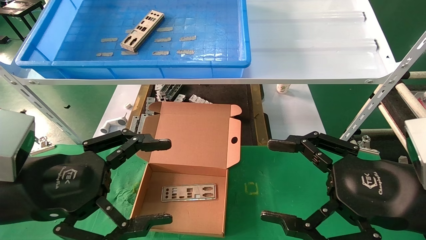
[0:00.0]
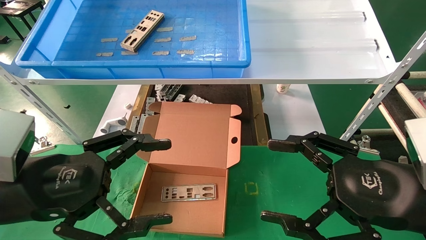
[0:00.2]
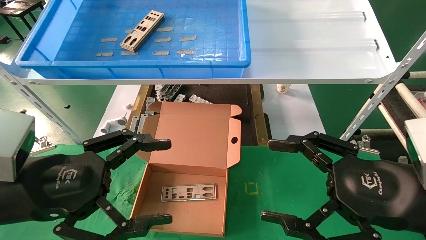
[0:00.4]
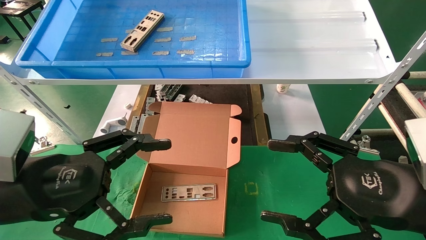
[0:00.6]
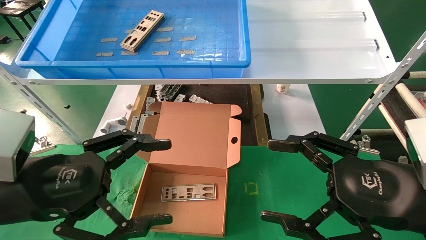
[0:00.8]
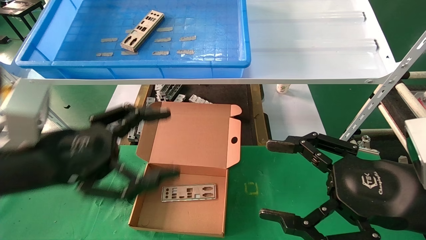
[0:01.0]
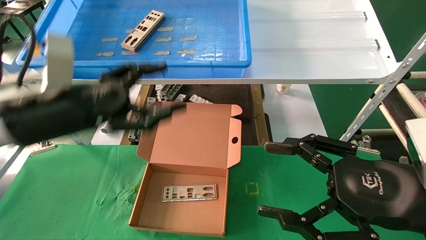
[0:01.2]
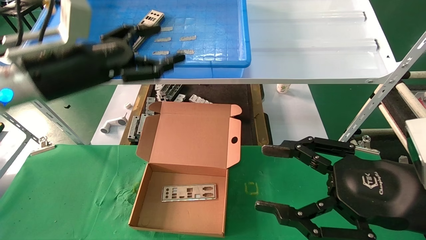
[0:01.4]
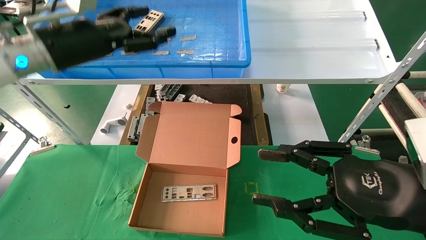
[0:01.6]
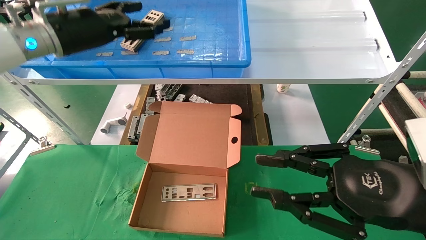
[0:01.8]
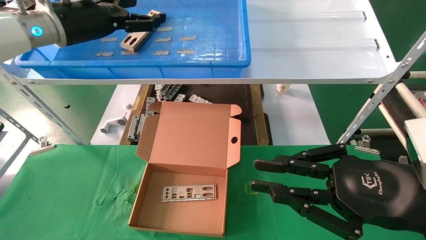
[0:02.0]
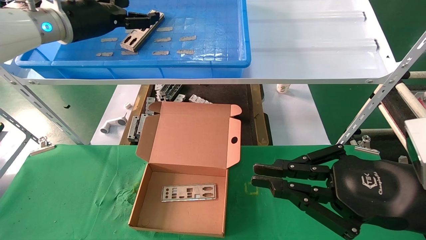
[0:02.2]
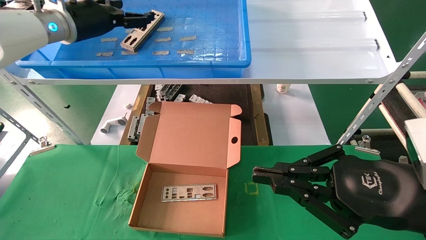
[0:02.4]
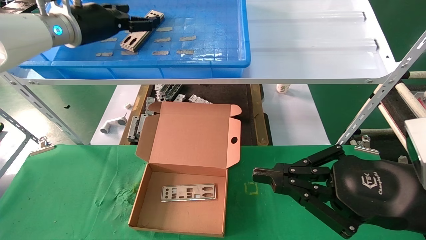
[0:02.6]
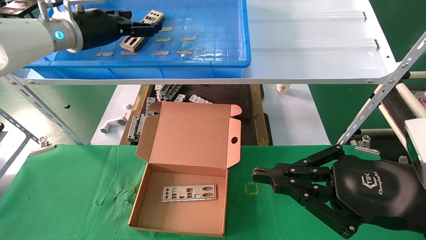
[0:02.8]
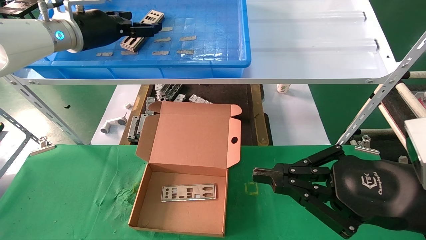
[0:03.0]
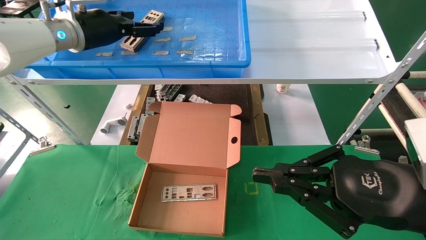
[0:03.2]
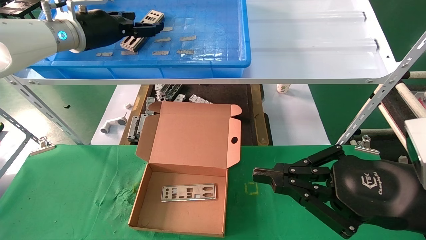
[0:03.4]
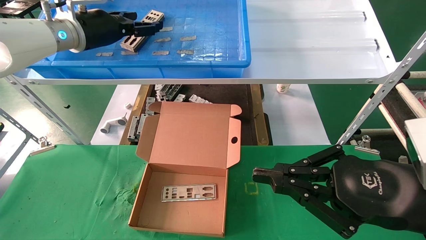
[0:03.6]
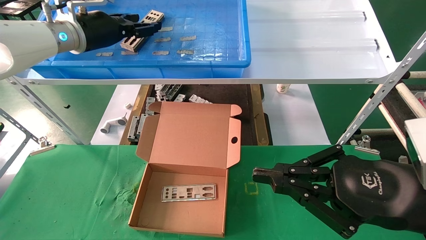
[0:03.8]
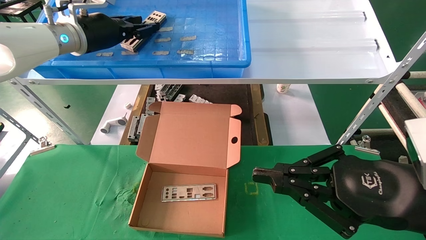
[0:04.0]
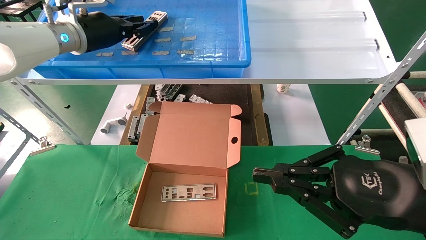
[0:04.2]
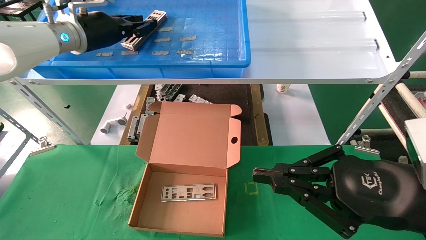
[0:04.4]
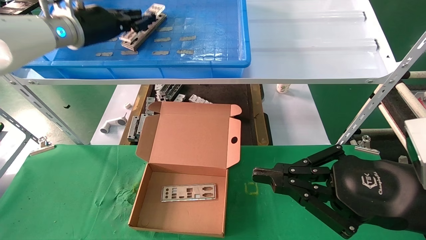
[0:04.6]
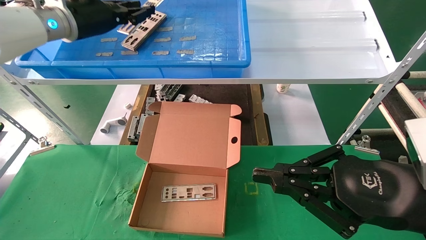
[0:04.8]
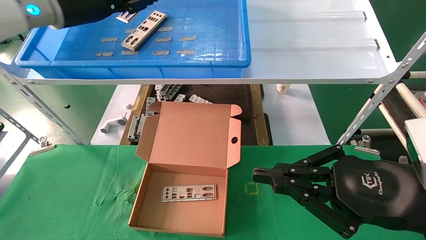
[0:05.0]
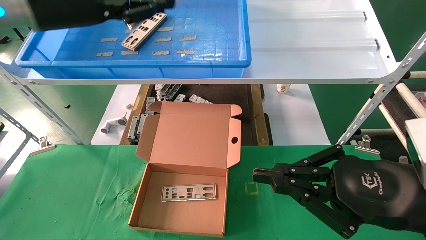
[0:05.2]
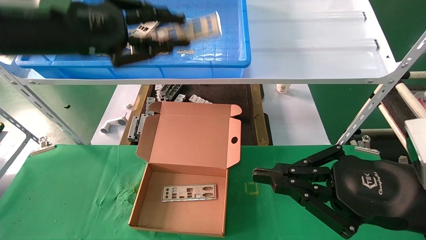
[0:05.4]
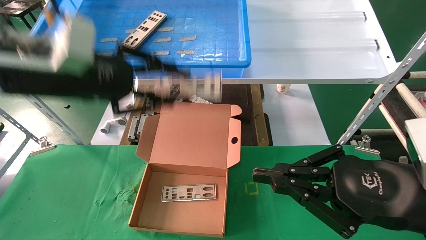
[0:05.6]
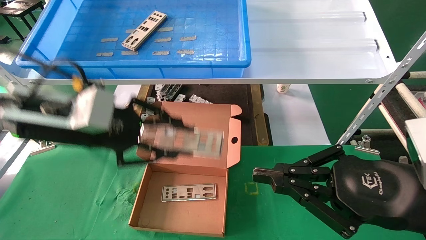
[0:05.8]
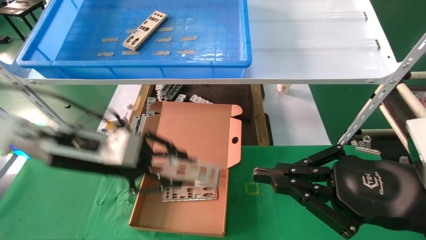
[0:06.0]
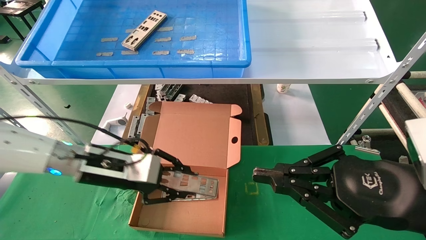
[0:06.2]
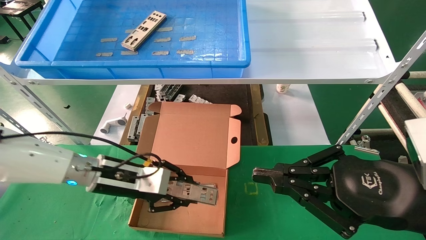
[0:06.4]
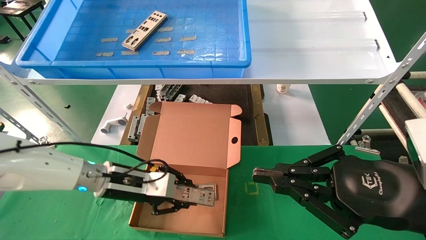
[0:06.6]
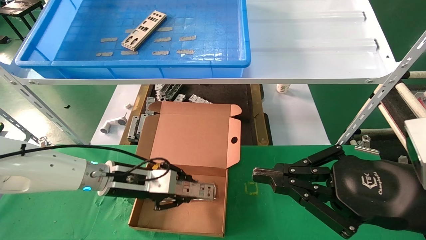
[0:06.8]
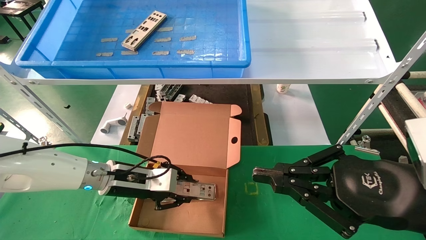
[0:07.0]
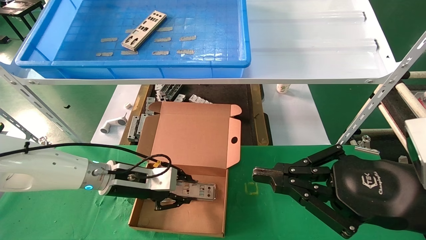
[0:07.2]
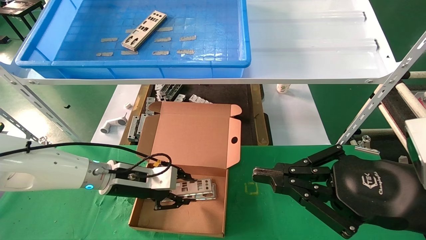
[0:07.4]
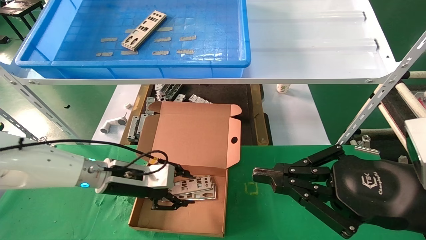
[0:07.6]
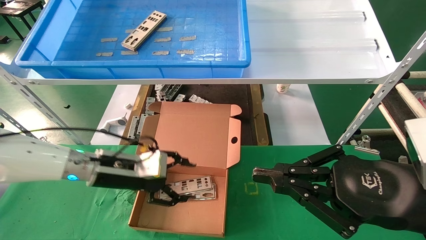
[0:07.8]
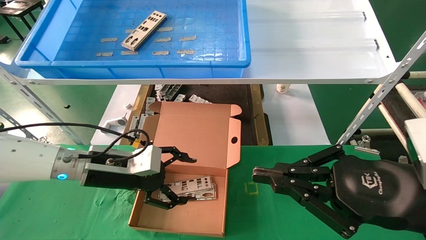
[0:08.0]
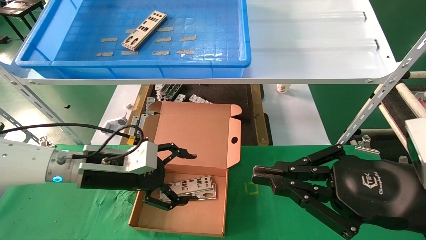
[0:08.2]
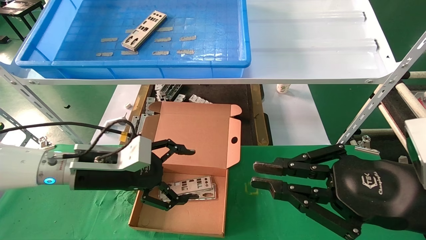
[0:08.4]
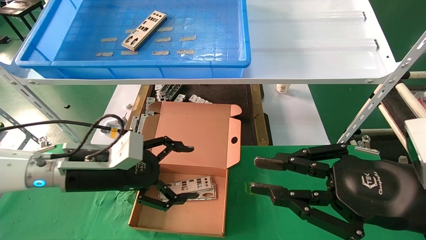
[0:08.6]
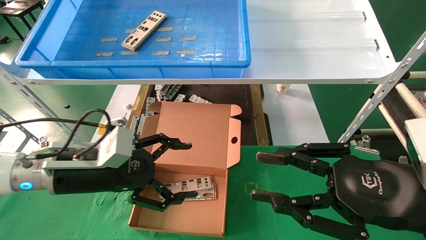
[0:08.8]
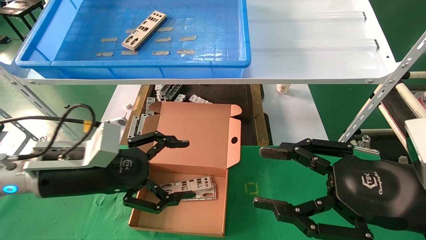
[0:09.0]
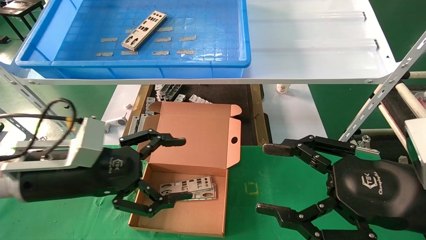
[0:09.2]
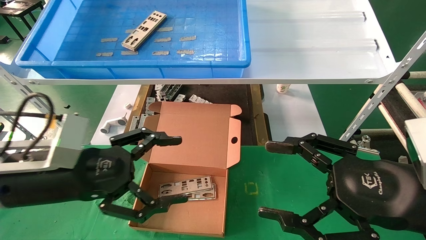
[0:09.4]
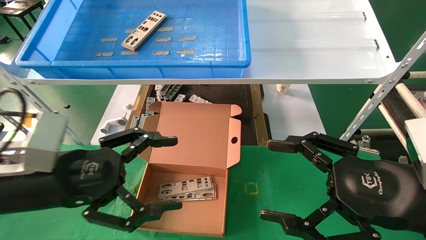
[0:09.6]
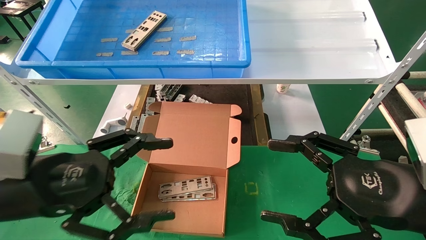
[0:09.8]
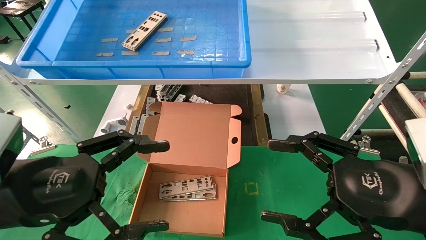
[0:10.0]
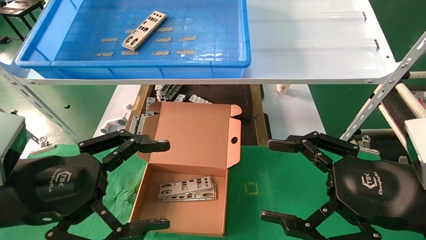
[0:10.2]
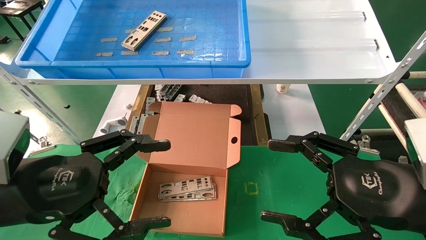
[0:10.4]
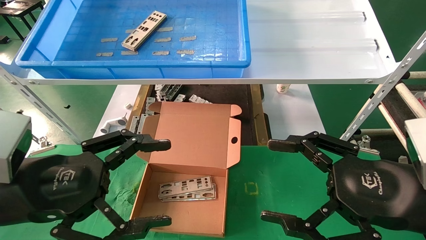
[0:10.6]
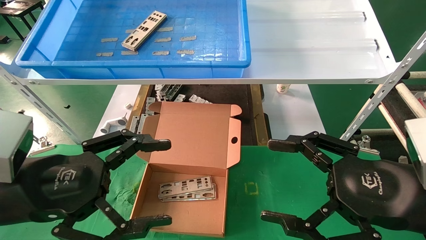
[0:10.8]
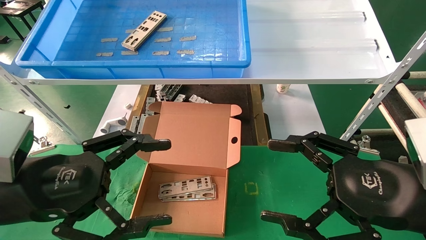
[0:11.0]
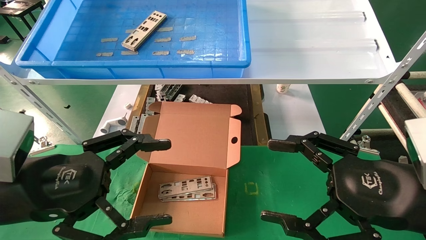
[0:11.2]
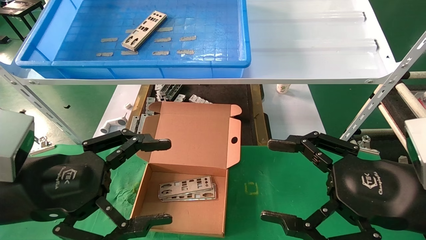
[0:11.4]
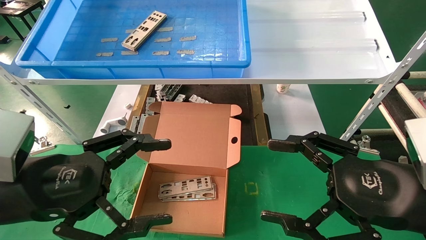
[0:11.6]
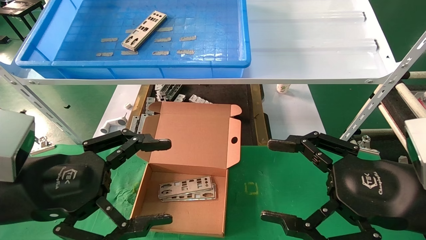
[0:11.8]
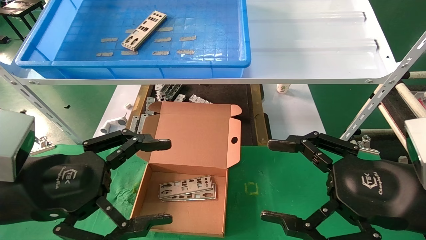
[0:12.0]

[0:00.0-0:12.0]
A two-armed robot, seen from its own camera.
Task of the whole recording: pick up the parts on the tray and put them in the cardboard box.
Step, 0:01.4 to 0:04.8: Pick up the IO bracket from the container box.
Step, 0:05.0 to 0:07.4: Place the IO bracket into the ingredient slot.
0:00.0 to 0:01.6: The left gripper moves forward and upward, approximately 25 cm.
0:01.6 to 0:03.0: The left gripper travels forward by approximately 5 cm, while the right gripper closes its fingers.
0:03.0 to 0:04.4: The left gripper closes up.
0:04.4 to 0:06.0: The left gripper is displaced downward and backward by some 20 cm.
0:06.0 to 0:07.6: The left gripper heads downward and forward, covering about 10 cm.
0:07.6 to 0:09.0: The left gripper travels backward and upward by roughly 10 cm, and opens its fingers, while the right gripper opens.
0:09.0 to 0:10.4: The right gripper opens. Meanwhile the left gripper travels backward by approximately 10 cm.
0:10.4 to 0:12.0: The two grippers keep their place.

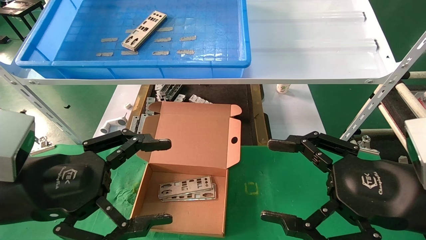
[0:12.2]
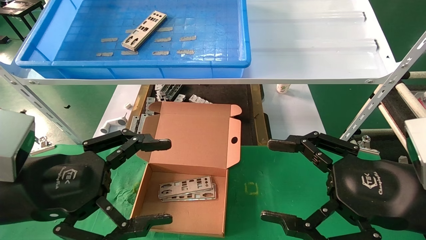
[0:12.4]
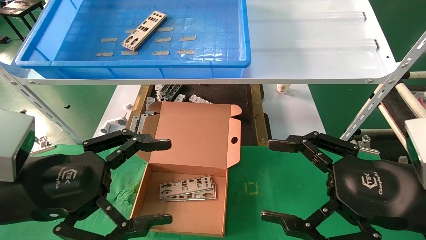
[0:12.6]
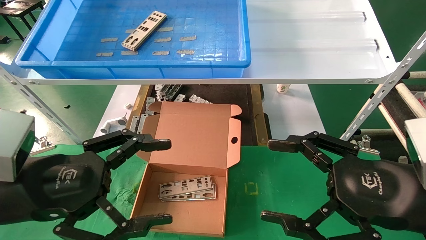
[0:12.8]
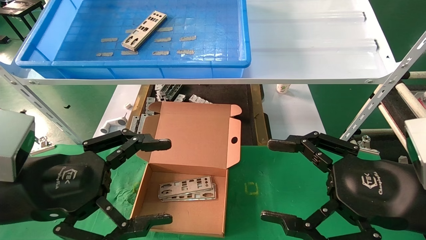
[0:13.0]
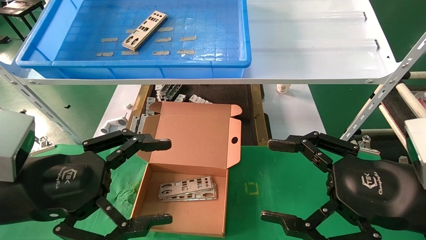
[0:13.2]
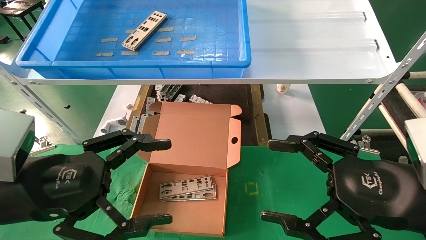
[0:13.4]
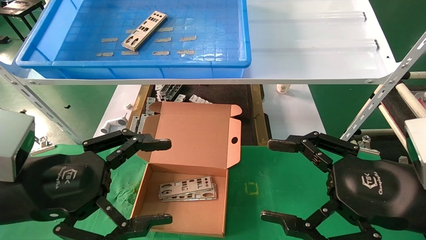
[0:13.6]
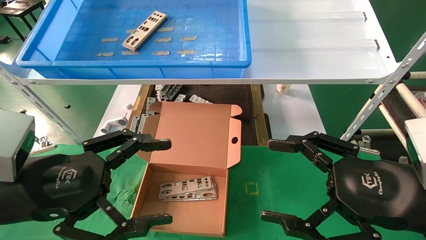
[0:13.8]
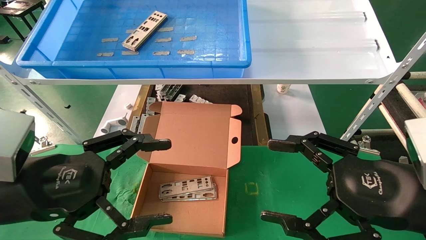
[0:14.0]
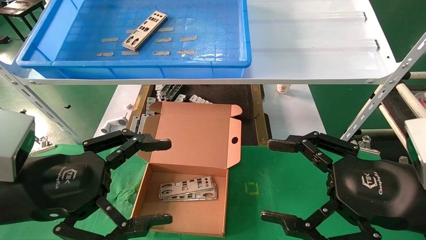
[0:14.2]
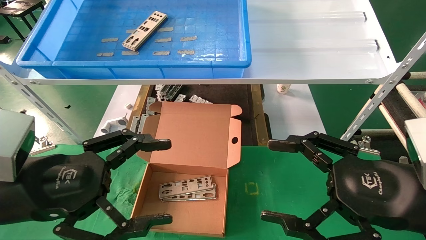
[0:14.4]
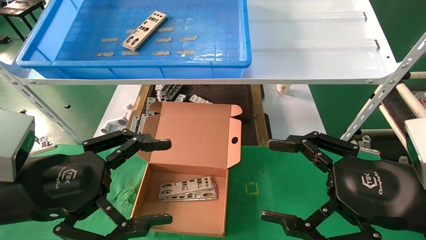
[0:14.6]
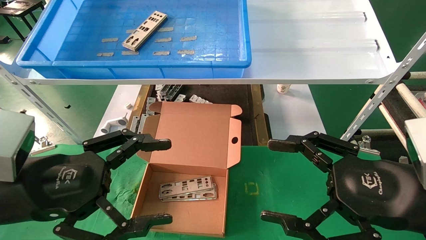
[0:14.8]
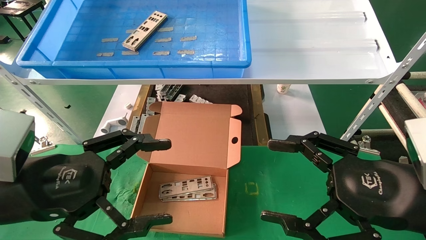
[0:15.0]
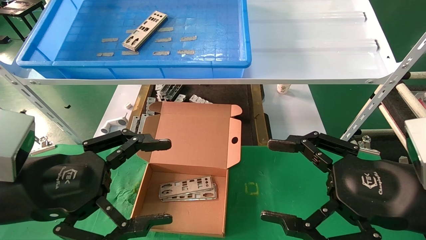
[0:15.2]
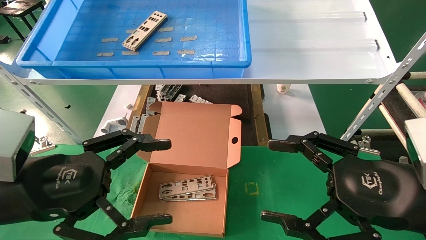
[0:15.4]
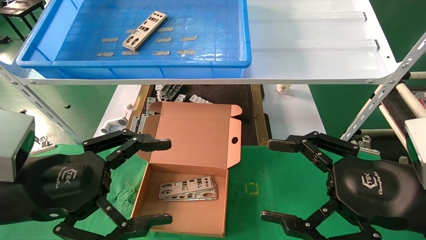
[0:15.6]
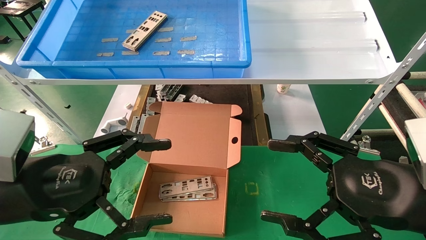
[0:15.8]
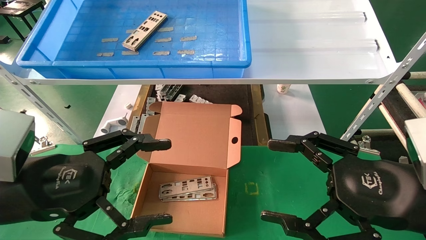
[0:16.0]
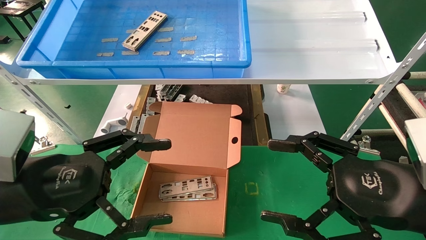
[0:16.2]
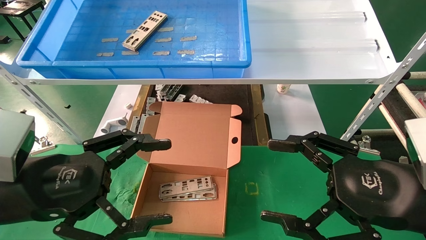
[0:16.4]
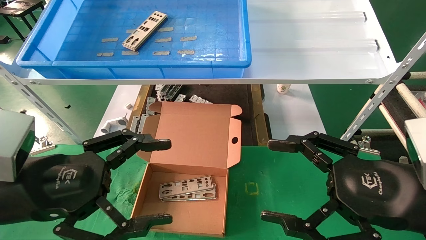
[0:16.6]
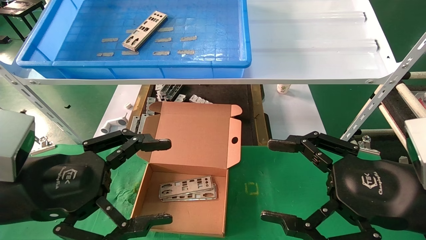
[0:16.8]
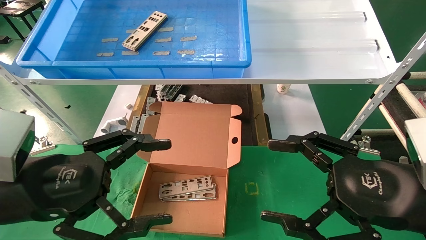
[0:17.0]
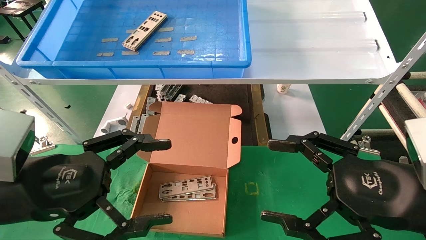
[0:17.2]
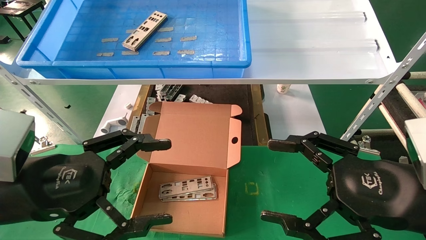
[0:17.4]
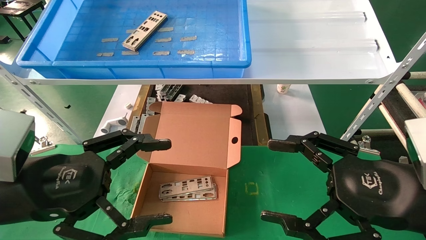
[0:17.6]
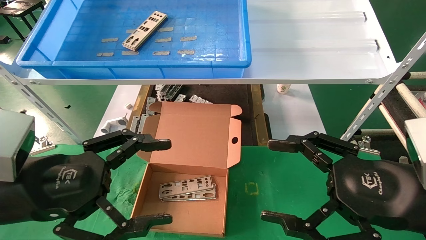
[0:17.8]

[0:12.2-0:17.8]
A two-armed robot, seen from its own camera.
Task of the whole recording: pick up the parts on the tray and put them in the cardboard box.
0:12.2 to 0:17.8: Neither gripper changes place.
